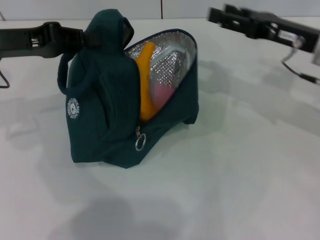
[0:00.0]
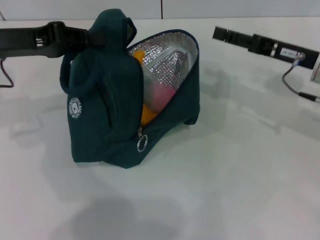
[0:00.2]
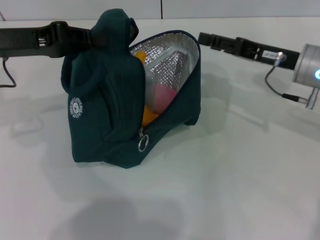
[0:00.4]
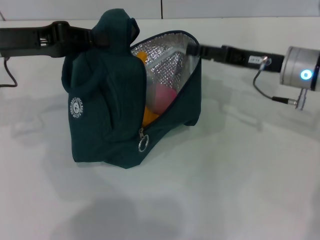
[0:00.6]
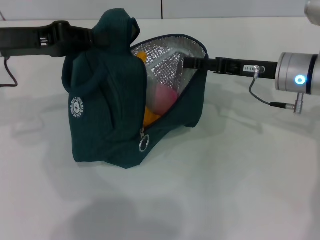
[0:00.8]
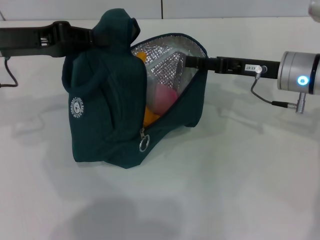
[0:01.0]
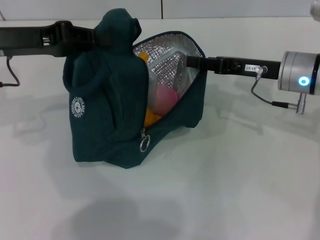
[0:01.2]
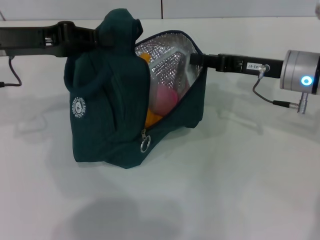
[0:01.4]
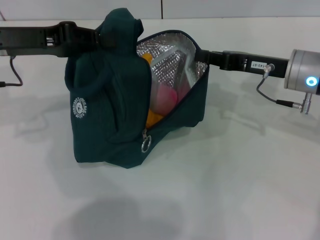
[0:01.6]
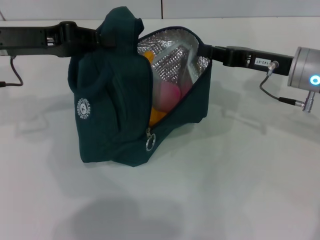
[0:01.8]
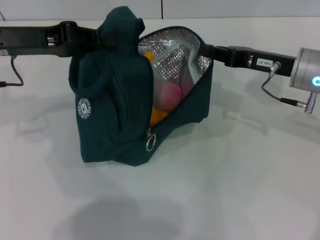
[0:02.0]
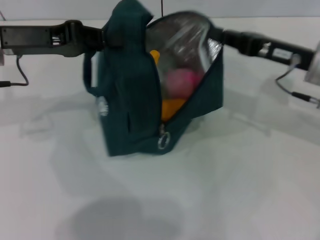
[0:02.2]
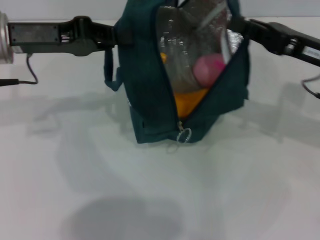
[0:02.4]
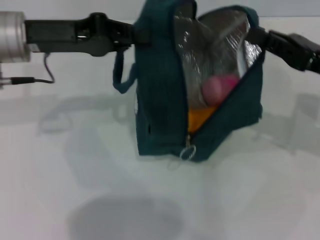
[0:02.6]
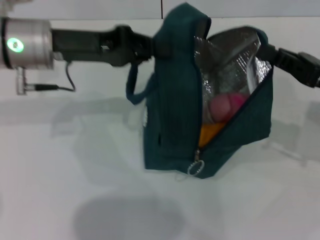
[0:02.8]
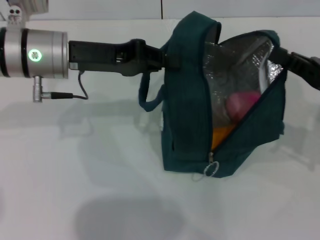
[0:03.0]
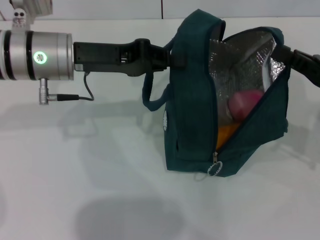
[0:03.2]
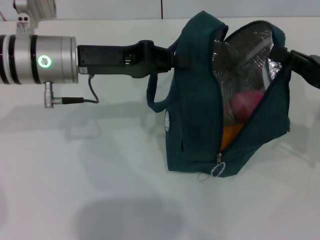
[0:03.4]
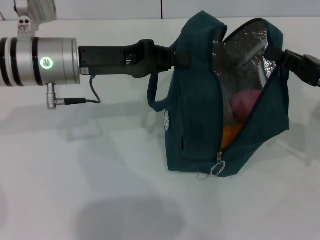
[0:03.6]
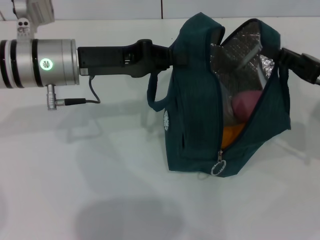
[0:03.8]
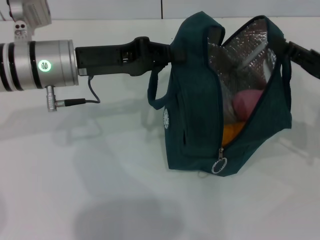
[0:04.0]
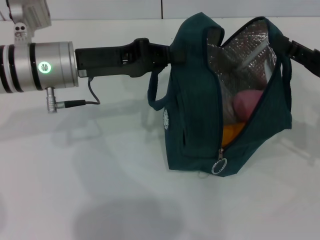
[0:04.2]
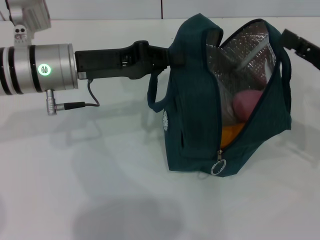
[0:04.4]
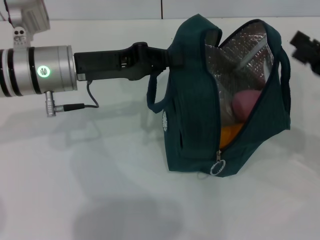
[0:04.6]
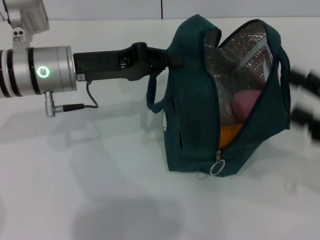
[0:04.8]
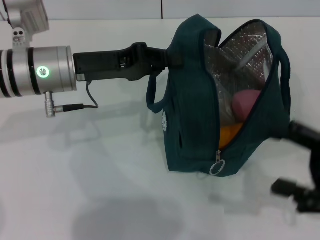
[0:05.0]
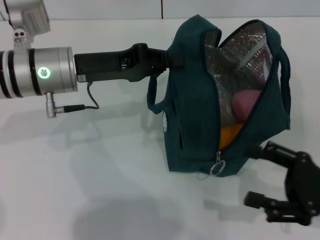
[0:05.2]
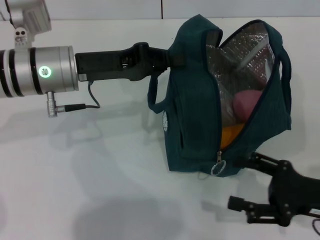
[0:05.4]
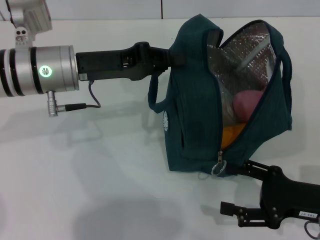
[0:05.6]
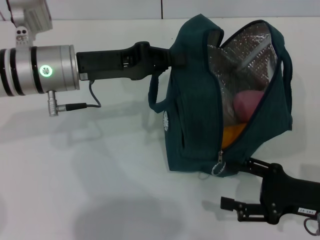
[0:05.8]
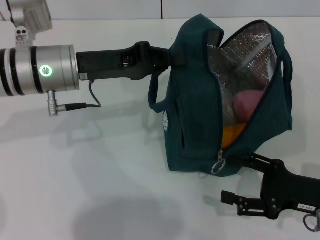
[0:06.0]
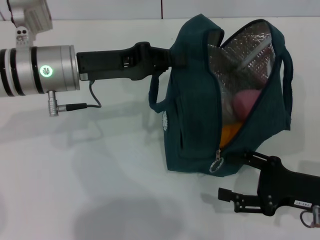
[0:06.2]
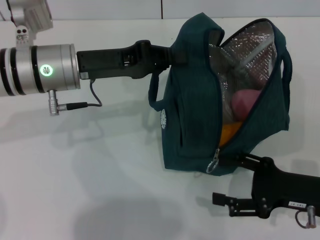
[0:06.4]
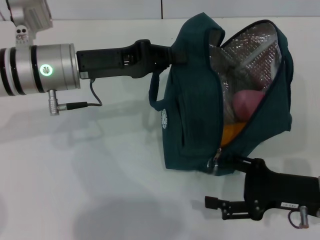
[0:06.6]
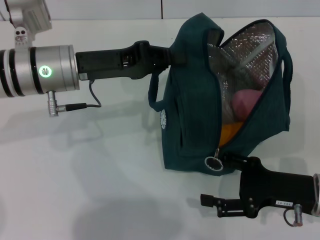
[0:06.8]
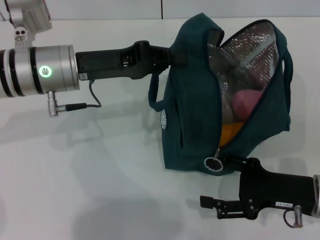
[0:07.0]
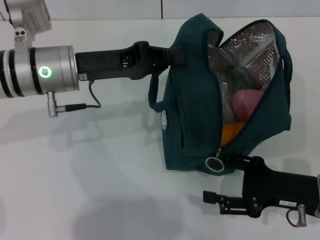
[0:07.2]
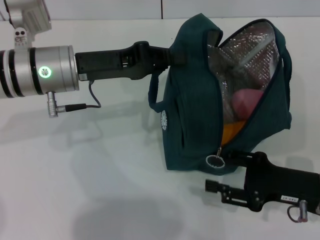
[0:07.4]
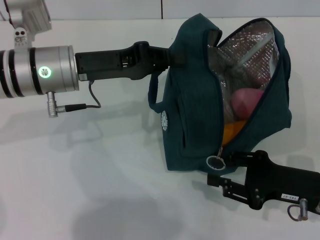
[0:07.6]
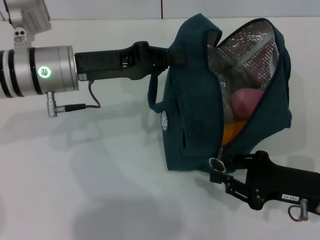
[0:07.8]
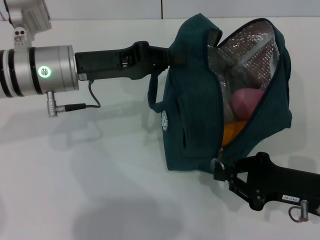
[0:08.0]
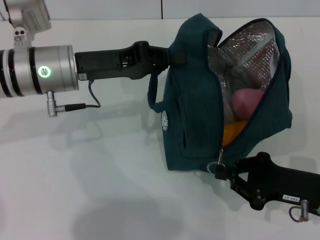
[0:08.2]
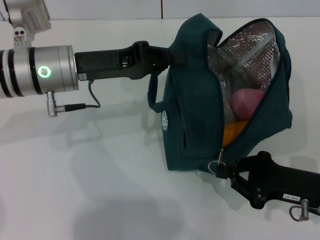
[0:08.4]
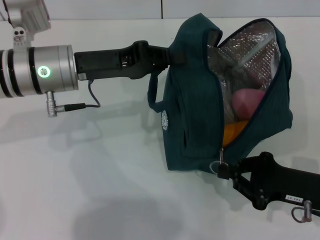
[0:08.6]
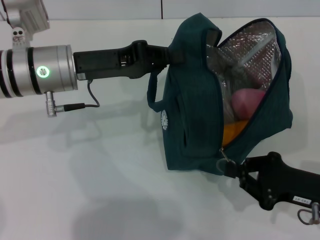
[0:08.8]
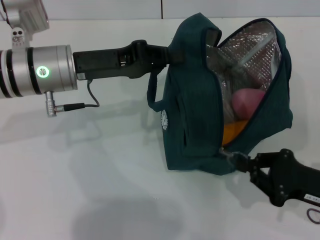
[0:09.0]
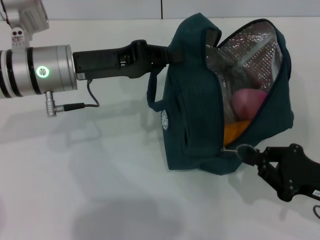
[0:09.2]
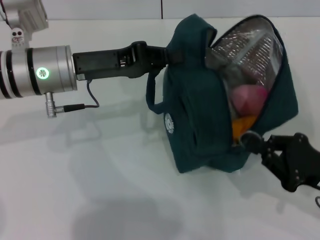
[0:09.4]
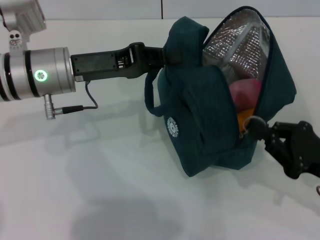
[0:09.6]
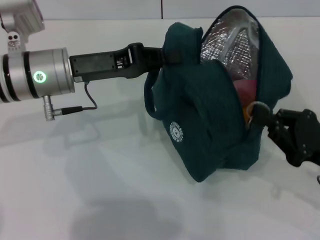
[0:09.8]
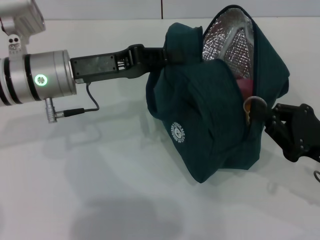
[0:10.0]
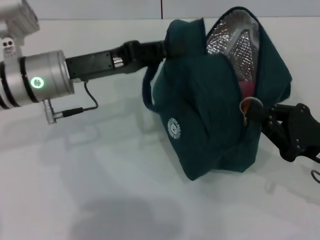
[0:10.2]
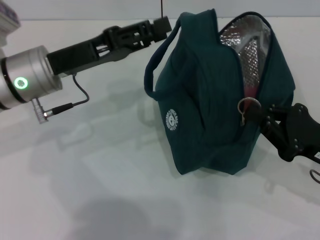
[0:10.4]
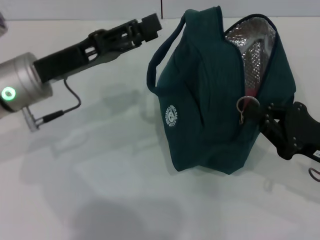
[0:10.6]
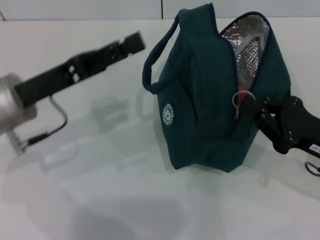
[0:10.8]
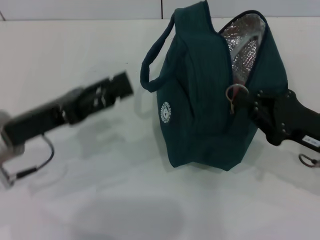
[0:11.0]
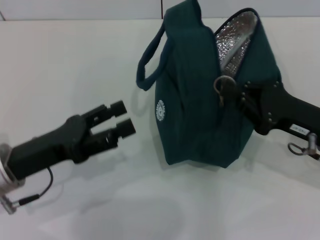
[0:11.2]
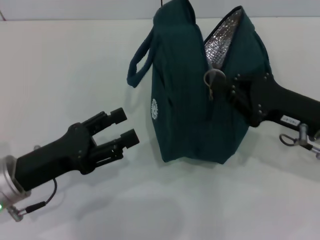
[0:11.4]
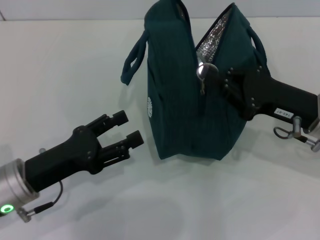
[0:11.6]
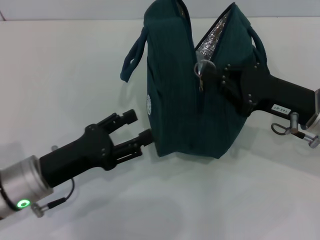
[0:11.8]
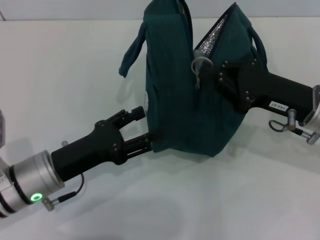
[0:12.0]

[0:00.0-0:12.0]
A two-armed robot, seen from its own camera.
Step, 0:00.0 to 0:04.4: Hold the lunch bag with your right hand.
0:00.0 to 0:01.6: The right gripper closes up.
0:01.6 to 0:03.0: The right gripper heads to the right and backward, covering about 10 cm; the left gripper heads to the right, covering roughly 10 cm.
0:03.0 to 0:04.4: The right gripper opens.
0:04.4 to 0:06.0: The right gripper shifts approximately 10 cm downward and backward, and opens its fingers.
0:06.0 to 0:07.6: There are only small adjustments of the grippers.
0:07.6 to 0:09.0: The right gripper closes.
0:10.4 to 0:12.0: The left gripper travels backward and downward by about 15 cm, and opens its fingers; the right gripper moves forward and to the left, some 10 cm.

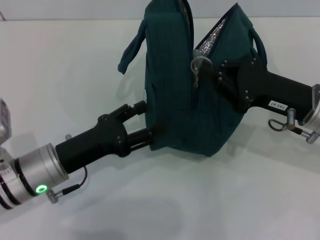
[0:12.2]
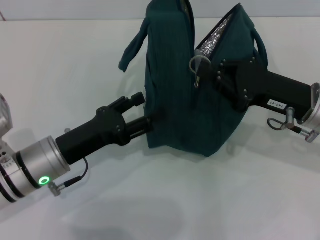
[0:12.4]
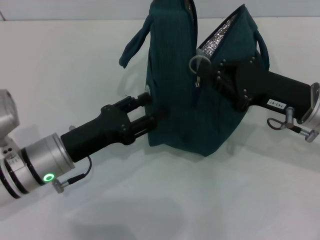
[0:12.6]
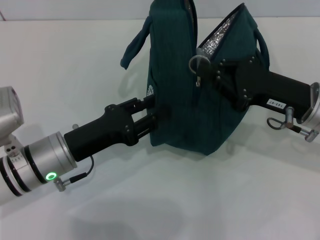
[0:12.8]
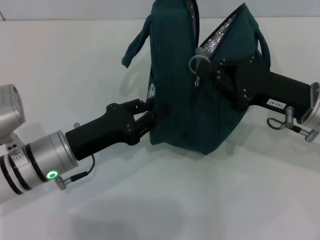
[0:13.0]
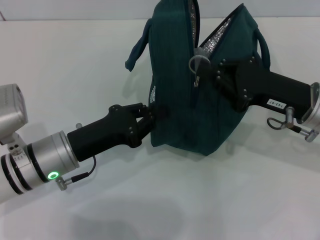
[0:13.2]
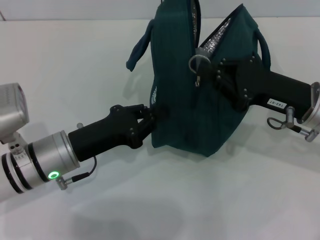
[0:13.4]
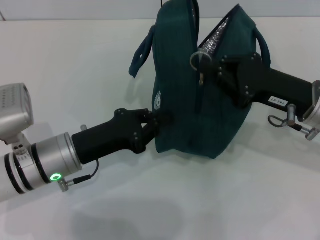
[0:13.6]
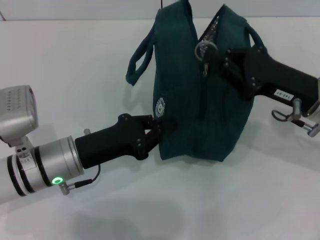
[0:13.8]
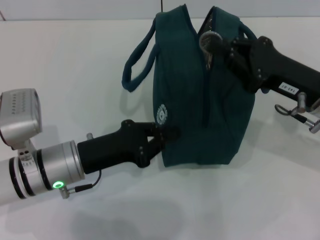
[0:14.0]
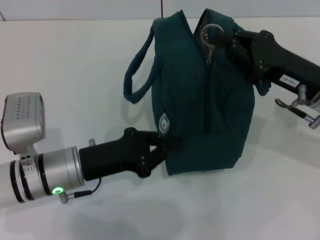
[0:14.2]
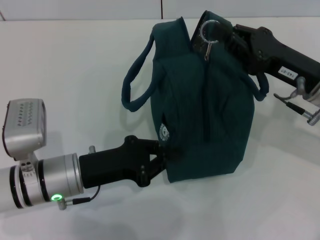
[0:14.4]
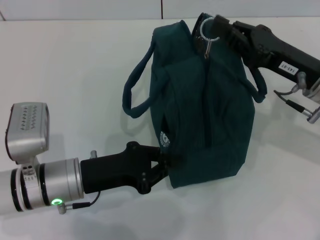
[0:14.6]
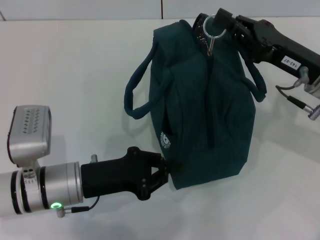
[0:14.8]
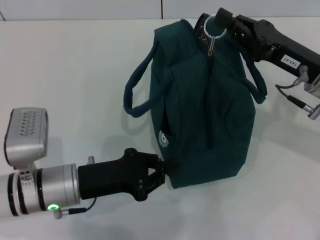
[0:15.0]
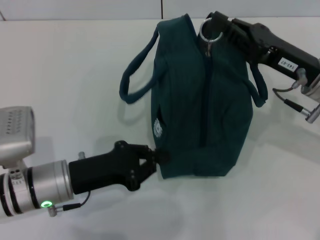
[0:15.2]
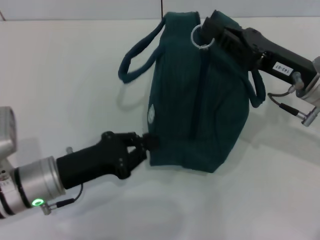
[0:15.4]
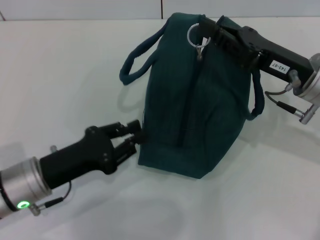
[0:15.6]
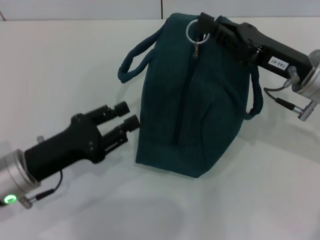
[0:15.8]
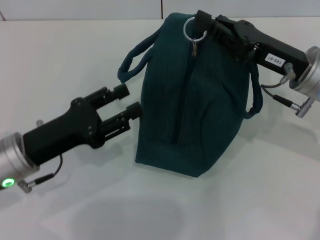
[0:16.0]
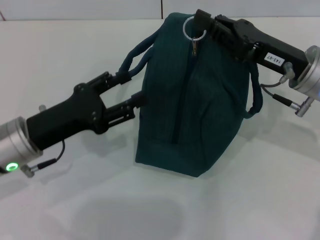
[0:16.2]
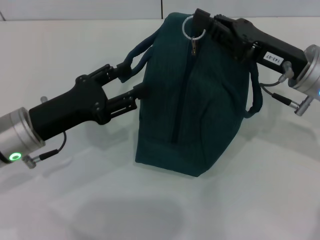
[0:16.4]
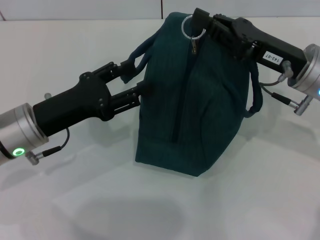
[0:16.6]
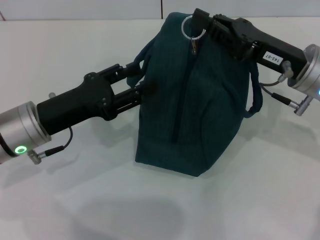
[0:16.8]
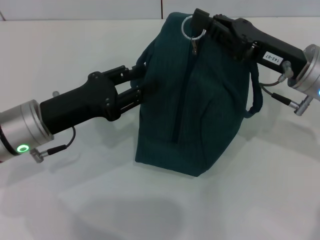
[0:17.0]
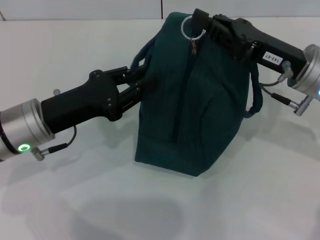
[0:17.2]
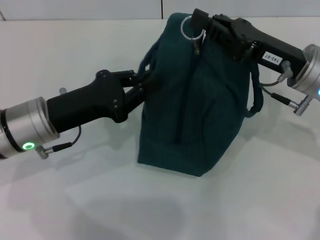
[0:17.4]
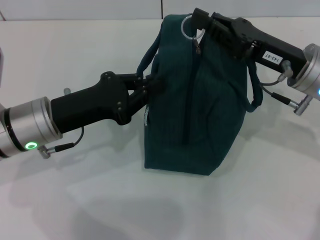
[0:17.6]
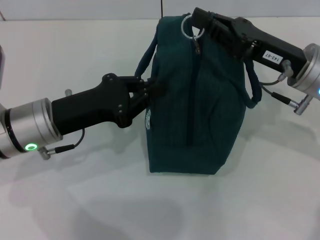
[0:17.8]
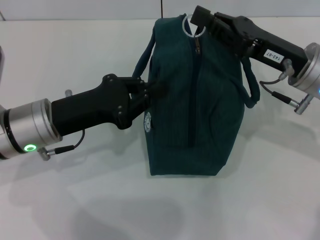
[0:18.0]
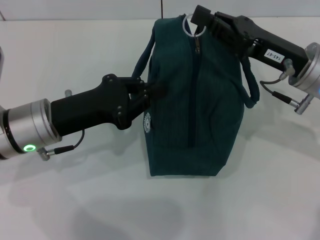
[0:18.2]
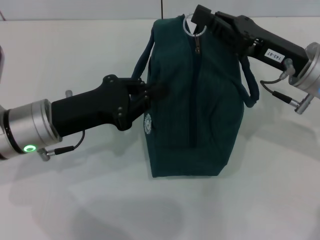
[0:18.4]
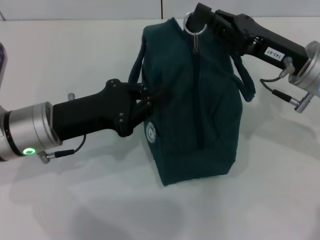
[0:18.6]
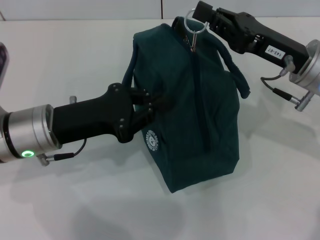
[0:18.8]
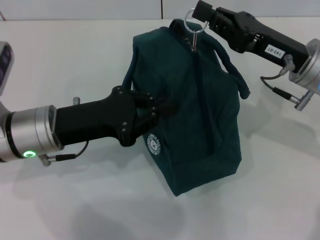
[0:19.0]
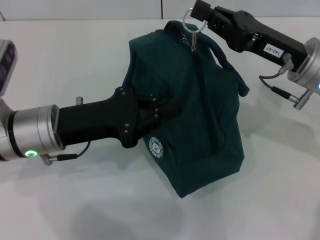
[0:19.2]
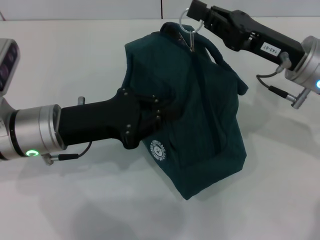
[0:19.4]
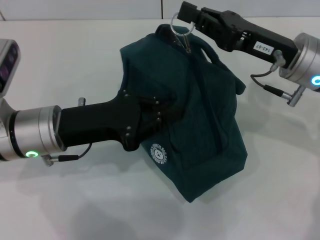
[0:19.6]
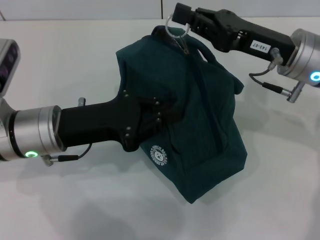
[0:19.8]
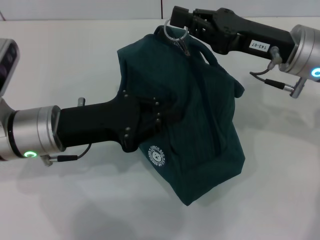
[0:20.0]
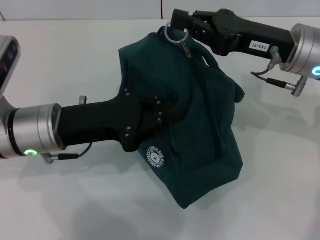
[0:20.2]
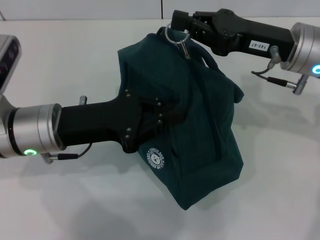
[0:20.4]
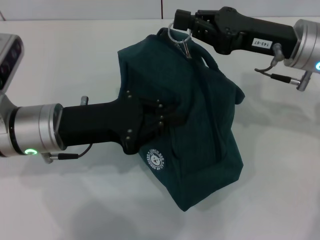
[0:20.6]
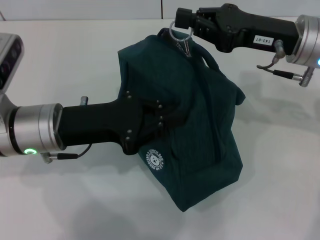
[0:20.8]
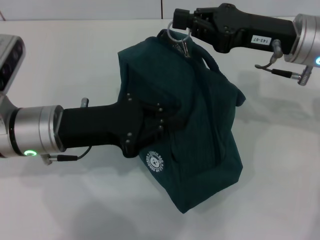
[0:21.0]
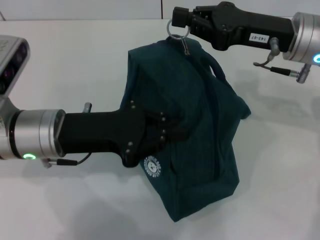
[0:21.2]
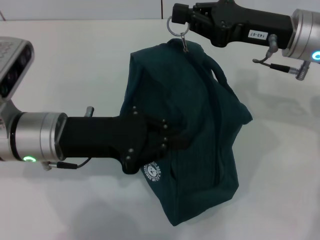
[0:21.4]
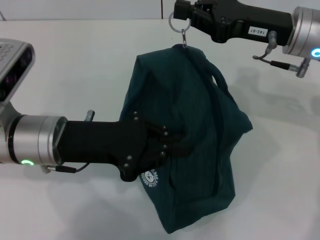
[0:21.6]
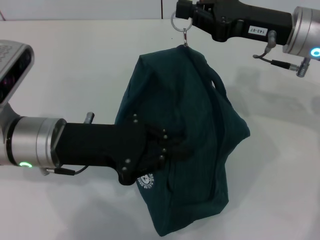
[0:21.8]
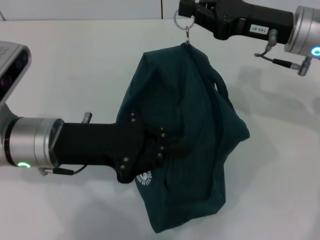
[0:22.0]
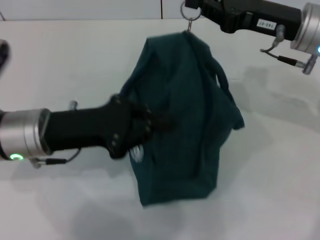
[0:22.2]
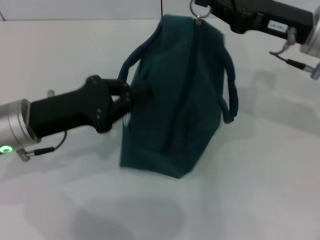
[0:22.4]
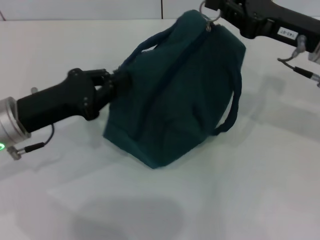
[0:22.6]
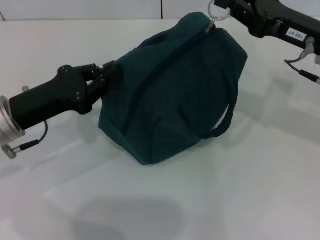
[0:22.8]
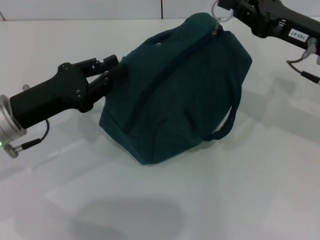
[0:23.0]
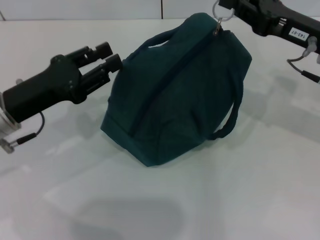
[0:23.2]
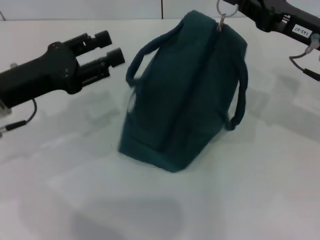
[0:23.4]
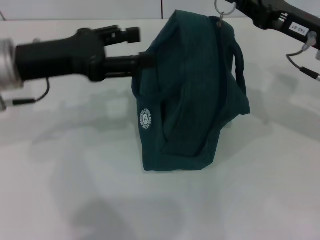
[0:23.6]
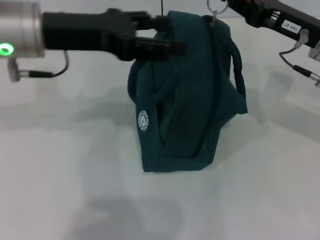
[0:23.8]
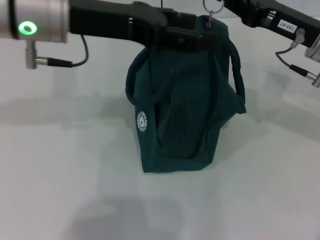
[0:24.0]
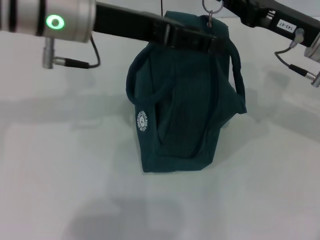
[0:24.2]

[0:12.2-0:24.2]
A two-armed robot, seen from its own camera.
0:12.2 to 0:13.8: The left gripper closes up.
0:15.2 to 0:16.6: The left gripper shifts about 5 cm upward, and opens.
0:16.6 to 0:18.2: The left gripper closes up.
0:19.8 to 0:21.2: There are only small adjustments of the grippers.
0:21.2 to 0:22.6: The left gripper moves to the left, about 5 cm.
0:22.6 to 0:24.2: The left gripper heads upward and to the right, covering about 20 cm, and opens.
